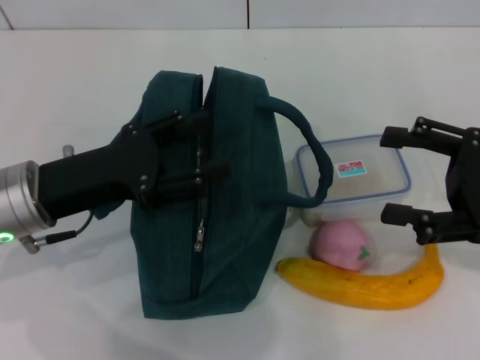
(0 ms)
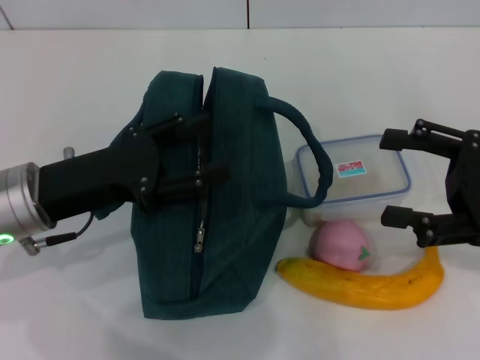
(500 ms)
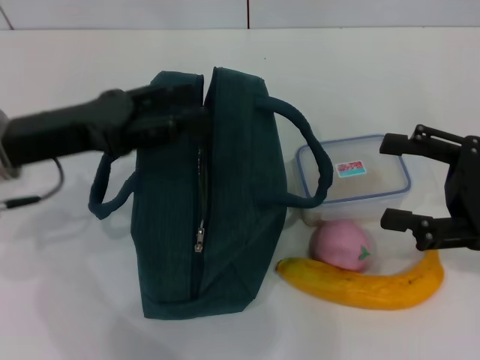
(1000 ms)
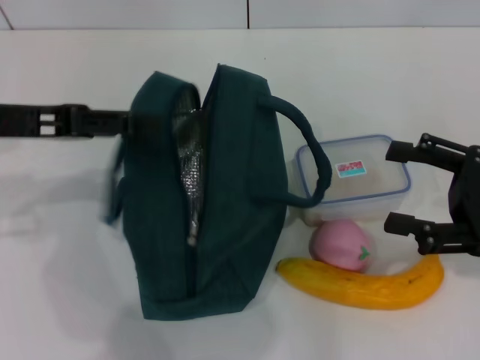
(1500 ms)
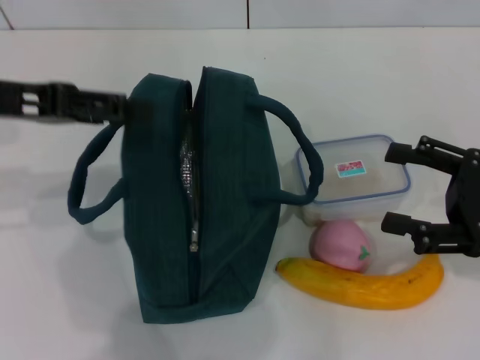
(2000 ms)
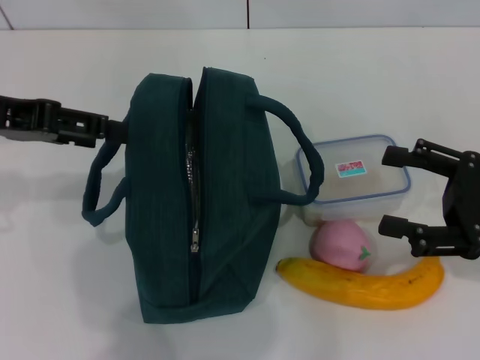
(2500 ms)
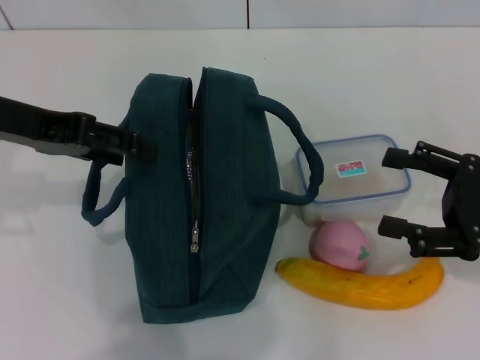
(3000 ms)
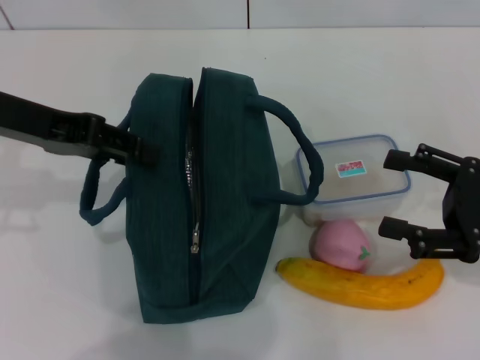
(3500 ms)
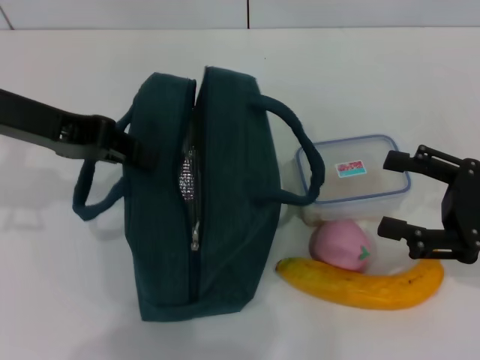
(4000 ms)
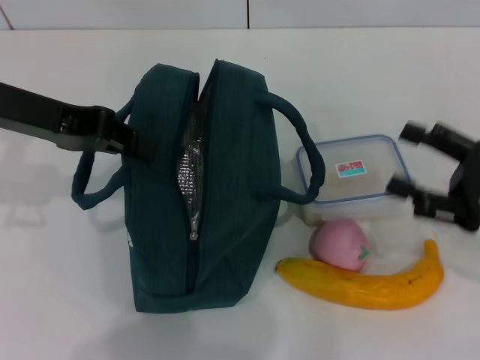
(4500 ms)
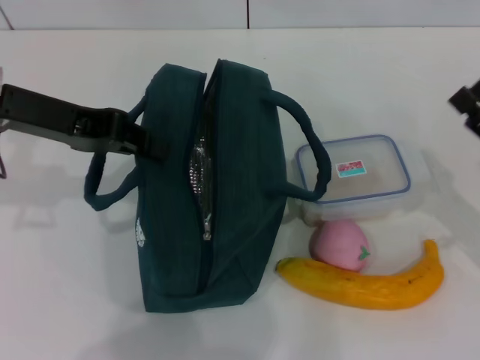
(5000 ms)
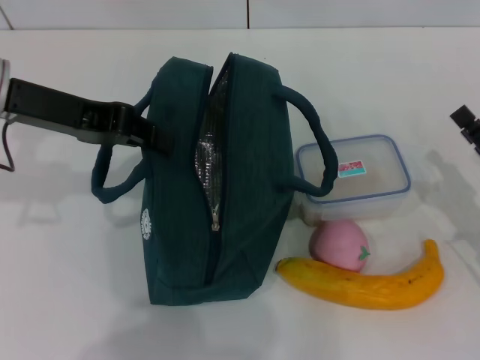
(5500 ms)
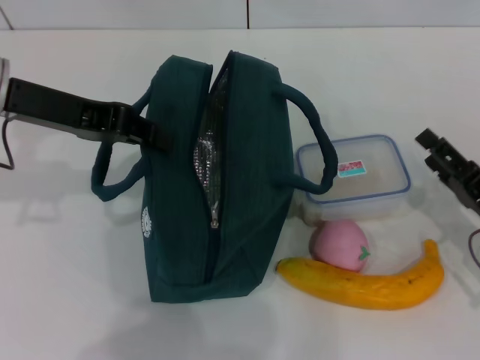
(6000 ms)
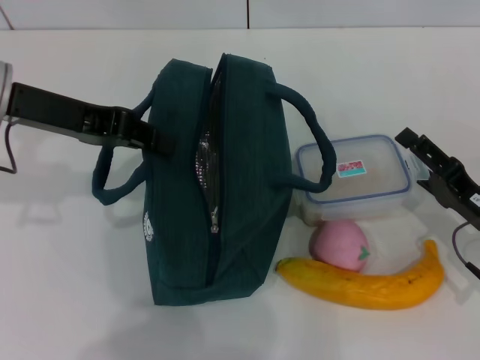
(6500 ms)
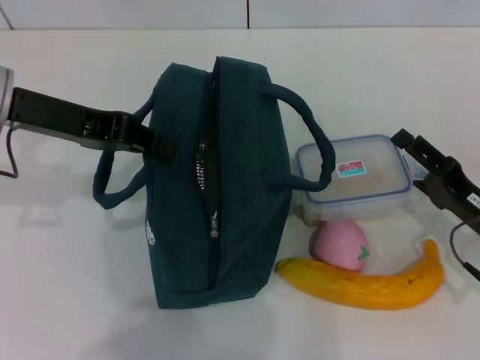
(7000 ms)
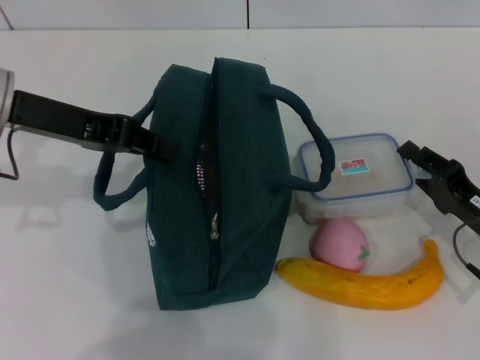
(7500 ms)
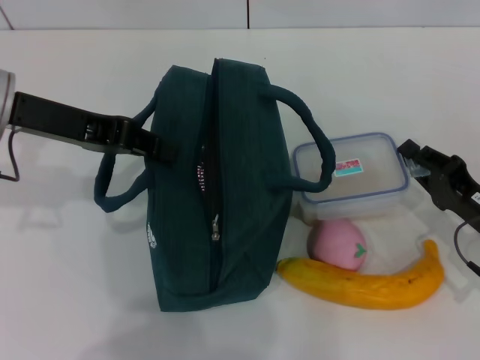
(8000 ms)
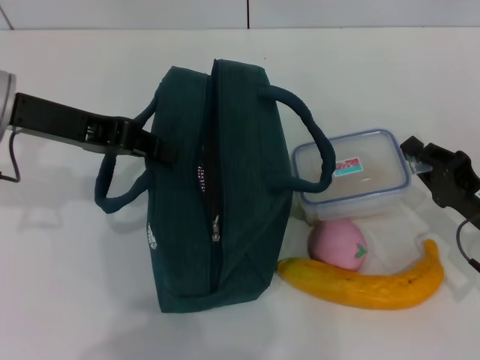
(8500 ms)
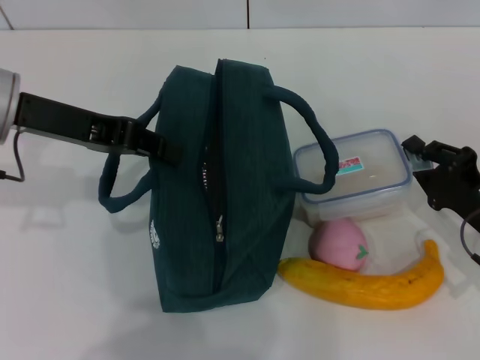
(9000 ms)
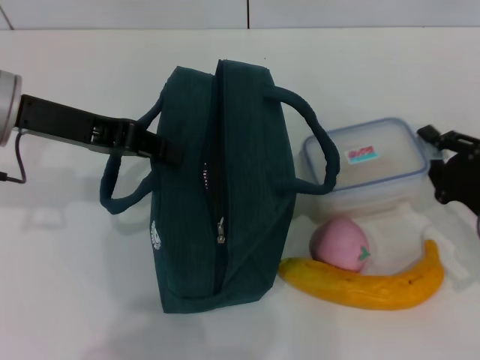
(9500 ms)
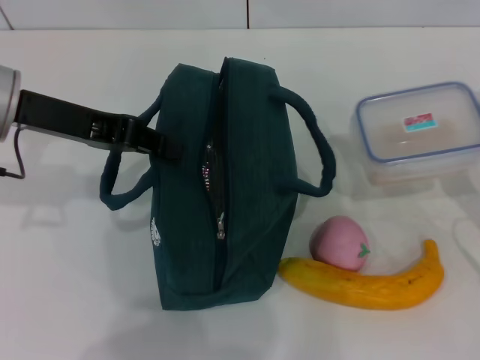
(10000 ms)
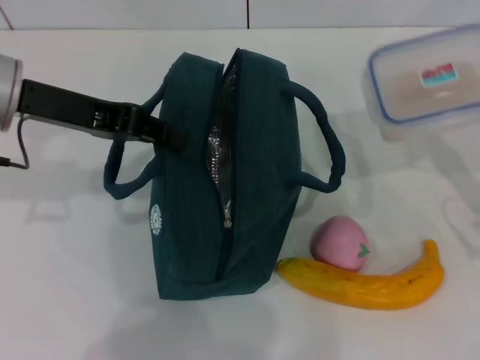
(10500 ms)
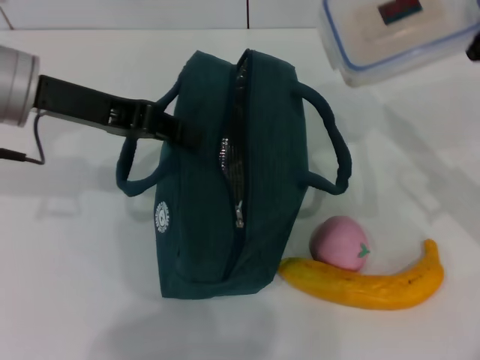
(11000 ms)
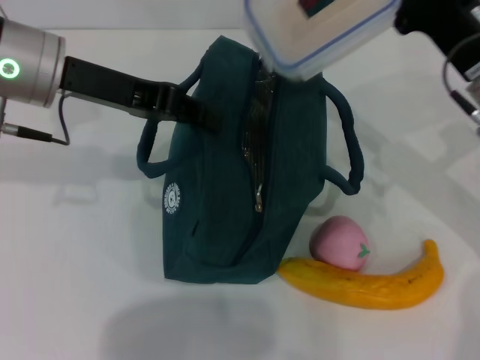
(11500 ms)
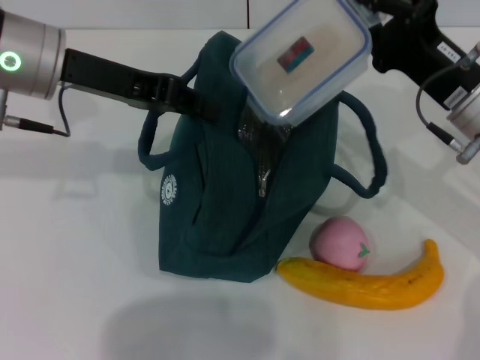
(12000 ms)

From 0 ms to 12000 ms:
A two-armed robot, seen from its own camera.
Step, from 0 ms to 4000 ms: Hold the lunch bag with your left hand.
Step, from 4500 ms to 8000 ms: Pick up the lunch box with your right hand.
From 0 ms to 2000 ms: The left gripper heads upward and to the left, covering about 15 cm.
From 2000 ms to 4000 ms: The left gripper closes up.
From 4000 ms to 6000 ms: The right gripper moves downward, about 10 cm.
From 6000 ms to 8000 ms: The right gripper closes.
From 10000 ms to 12000 ms: The right gripper goes some 15 cm to the left, forward and upward.

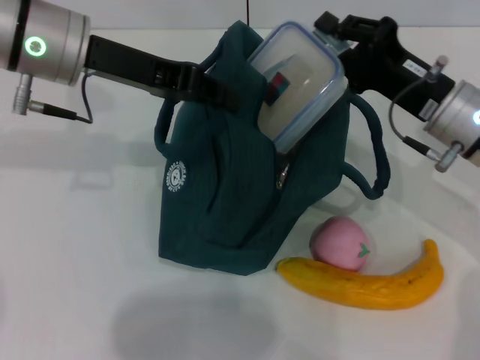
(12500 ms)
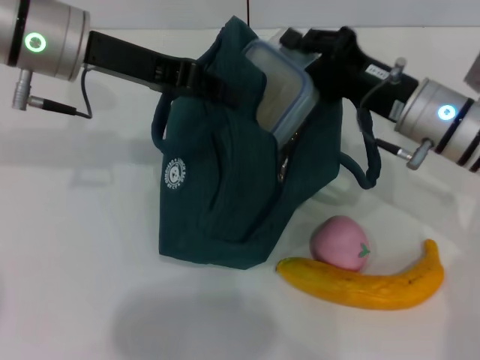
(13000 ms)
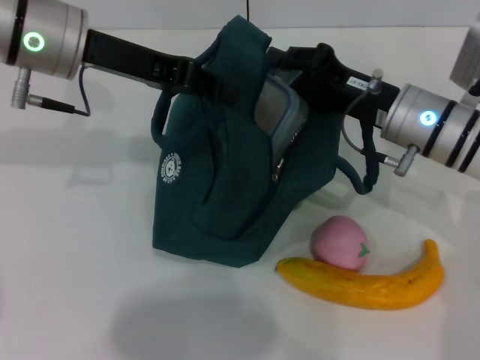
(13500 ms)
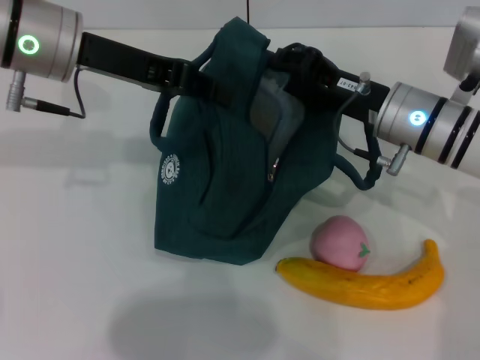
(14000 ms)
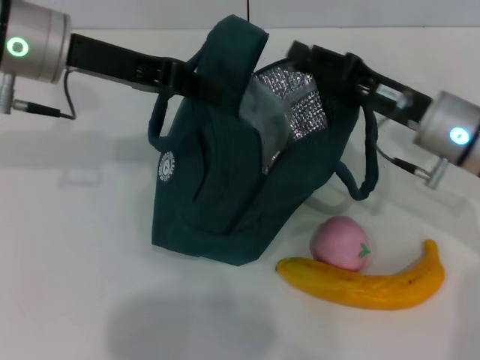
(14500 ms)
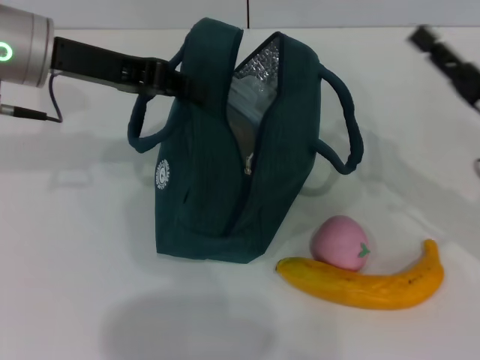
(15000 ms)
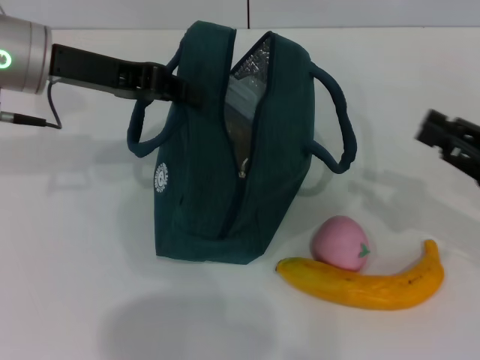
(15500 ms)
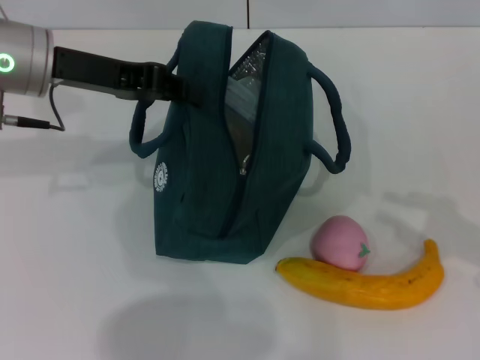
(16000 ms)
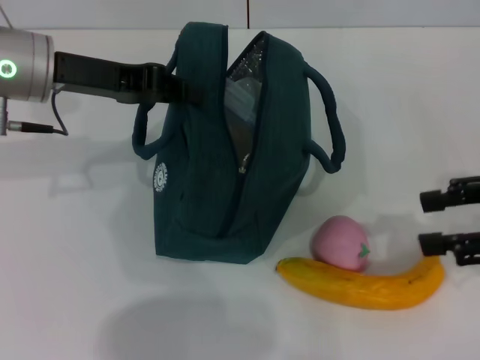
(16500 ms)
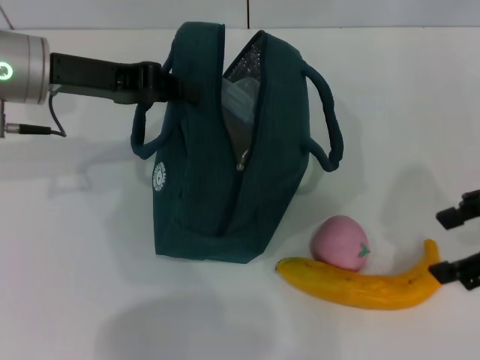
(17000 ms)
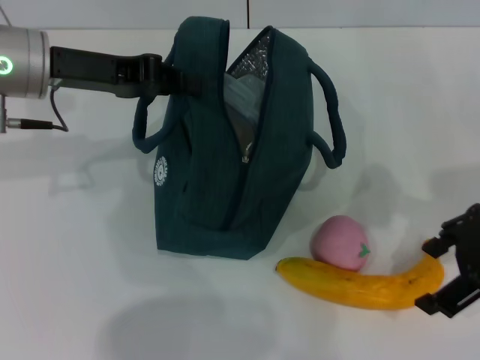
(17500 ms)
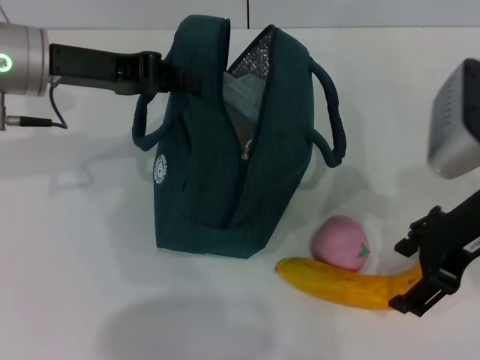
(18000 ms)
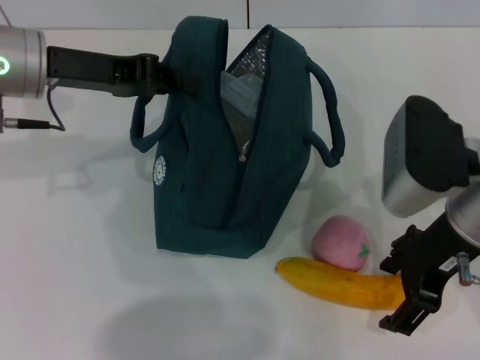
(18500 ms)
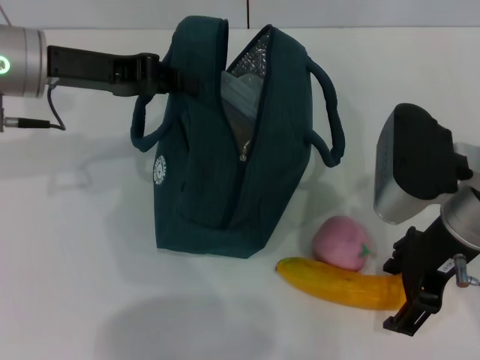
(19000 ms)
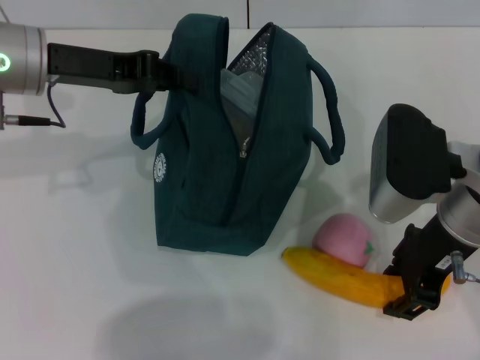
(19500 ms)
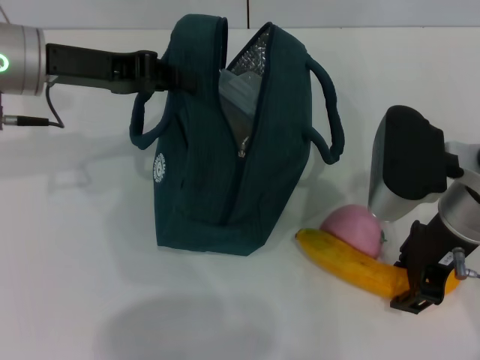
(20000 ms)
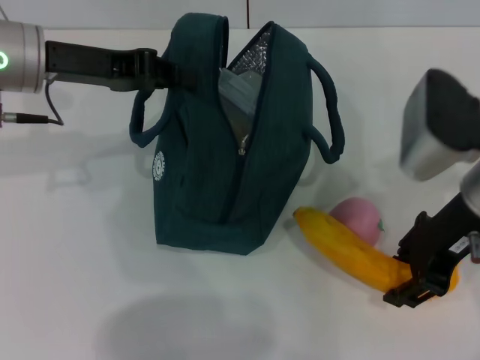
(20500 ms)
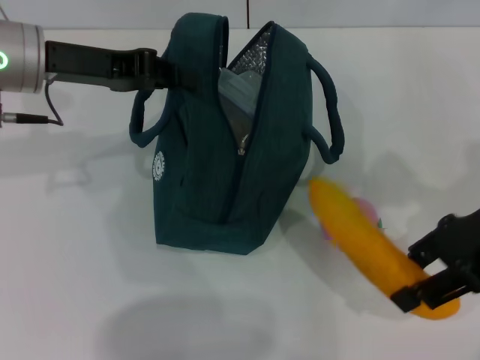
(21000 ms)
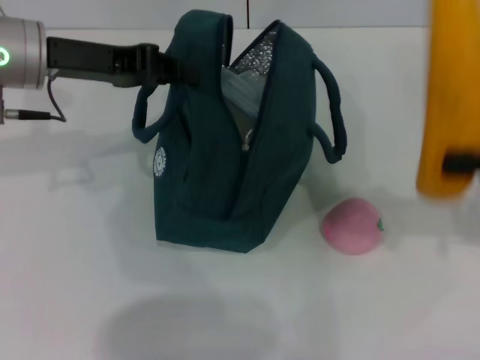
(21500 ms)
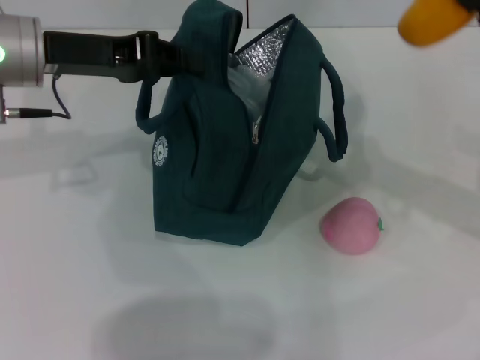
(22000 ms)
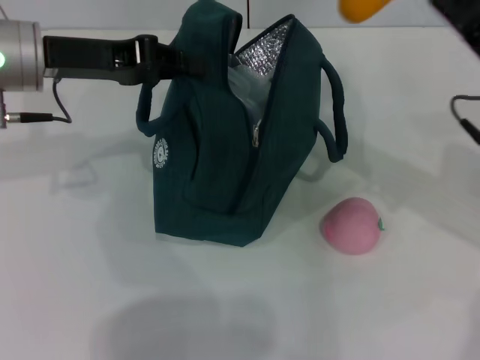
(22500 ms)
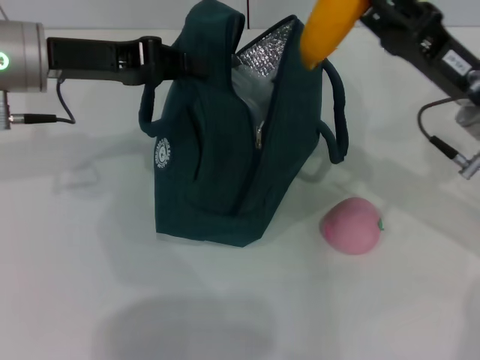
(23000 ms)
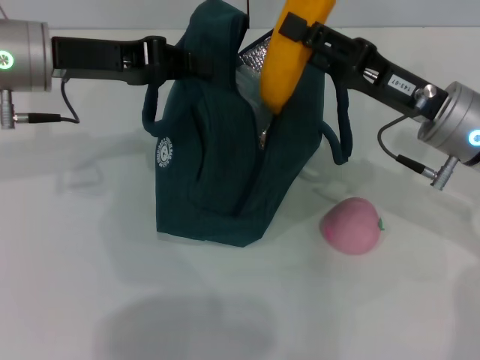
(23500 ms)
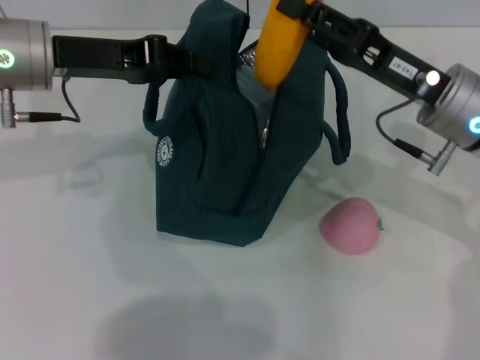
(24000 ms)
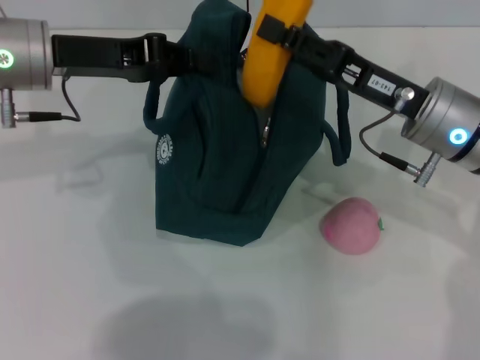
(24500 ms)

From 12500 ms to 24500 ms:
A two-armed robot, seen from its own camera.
Step, from 14500 ms to 20000 ms: Take the banana with your right hand.
From 14500 ms to 16500 ms: The right gripper shifts about 20 cm to the right, backward and upward.
From 16500 ms to 18500 ms: The right gripper moves to the left, about 15 cm.
From 18500 ms to 20500 ms: The right gripper closes.
From 20500 ms to 22500 ms: The right gripper travels to the right and back again, roughly 15 cm each way.
From 22500 ms to 24500 ms: The right gripper moves to the left, about 5 cm.

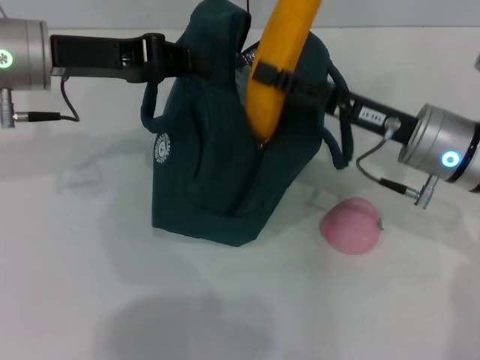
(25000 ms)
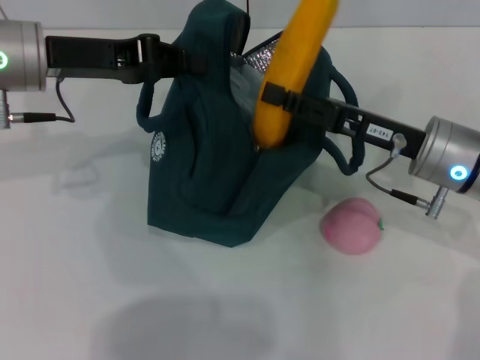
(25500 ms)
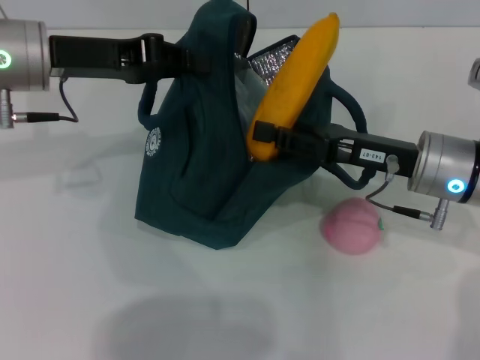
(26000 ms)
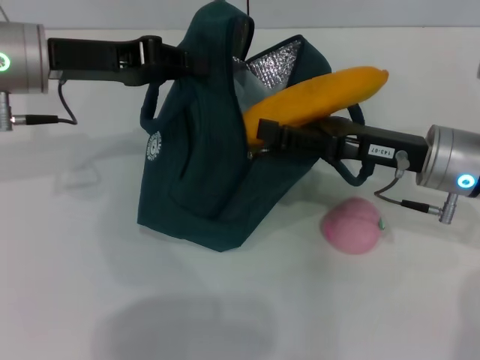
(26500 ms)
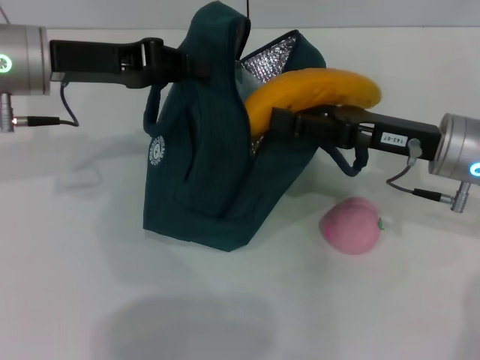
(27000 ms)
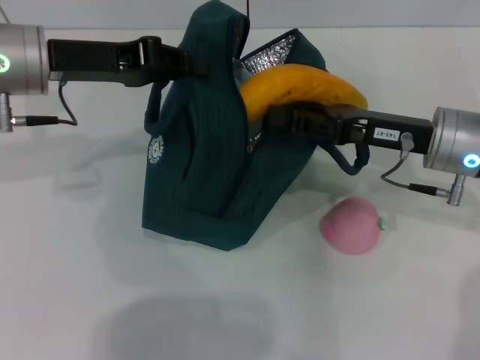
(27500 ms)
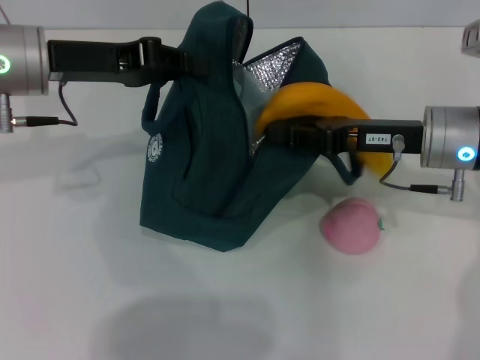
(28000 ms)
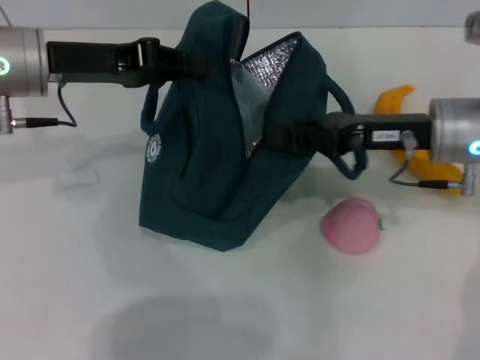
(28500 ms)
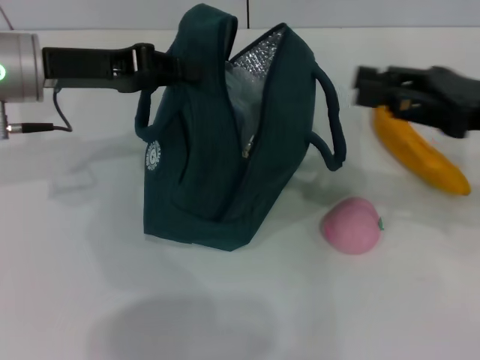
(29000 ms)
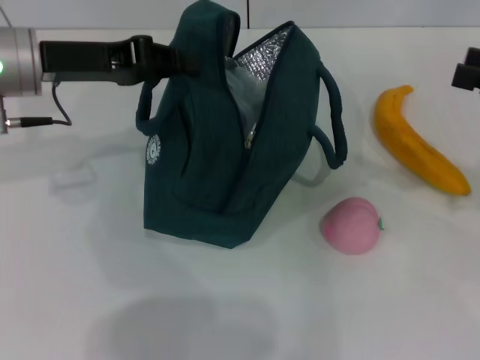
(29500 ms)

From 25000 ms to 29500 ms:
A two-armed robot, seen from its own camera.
From 25000 ms to 27000 ms: The right gripper opens.
From 27000 ms to 29500 ms: The right gripper moves to the right and upward, approximately 15 cm, and closes and opens again.
